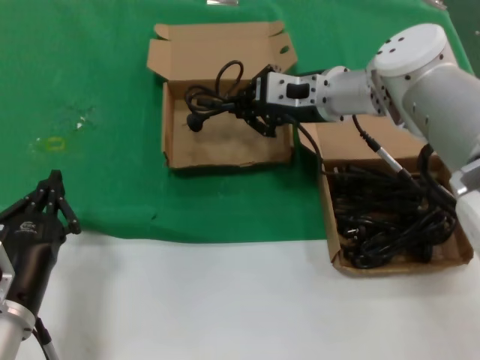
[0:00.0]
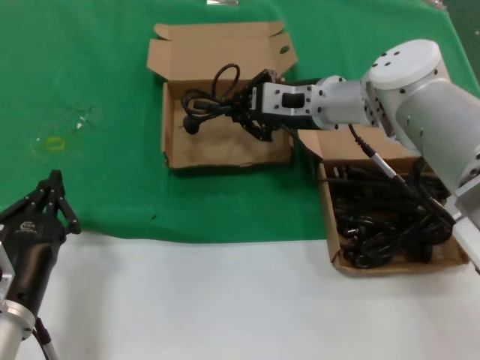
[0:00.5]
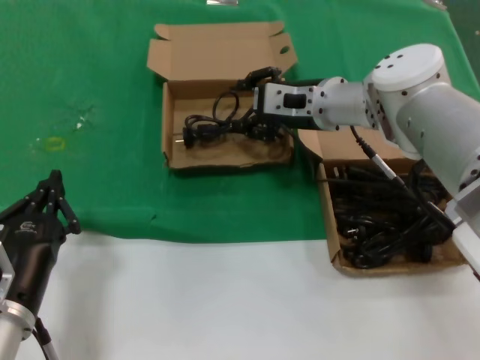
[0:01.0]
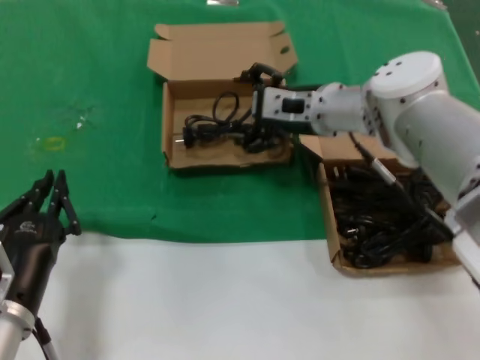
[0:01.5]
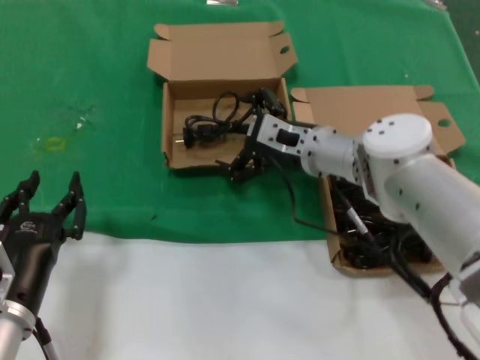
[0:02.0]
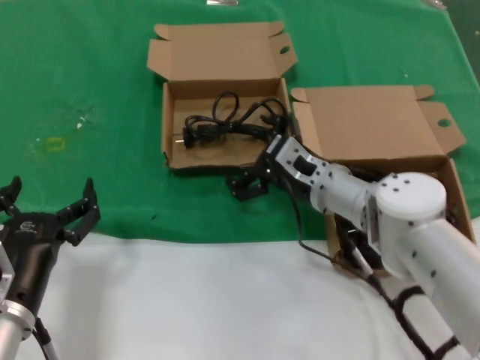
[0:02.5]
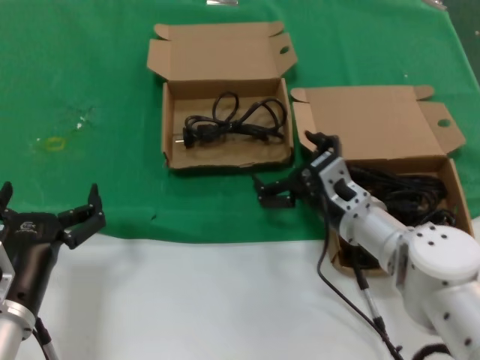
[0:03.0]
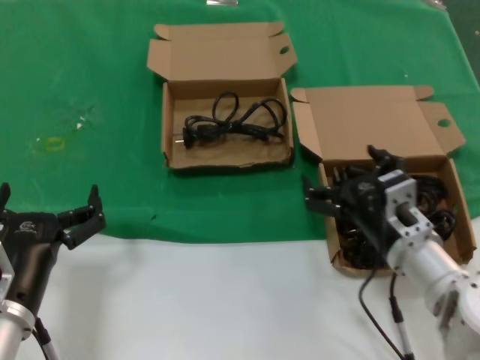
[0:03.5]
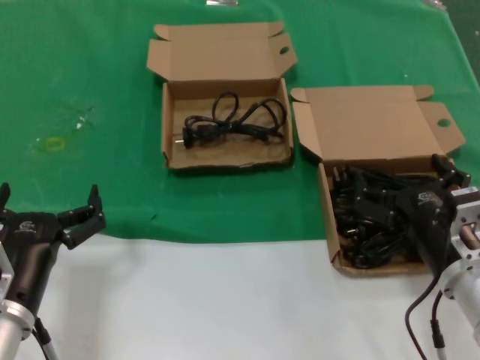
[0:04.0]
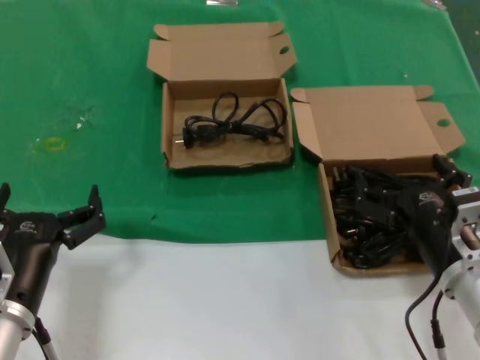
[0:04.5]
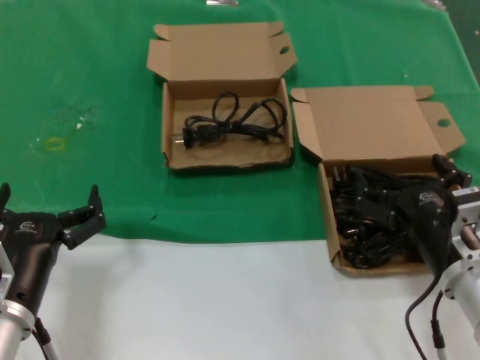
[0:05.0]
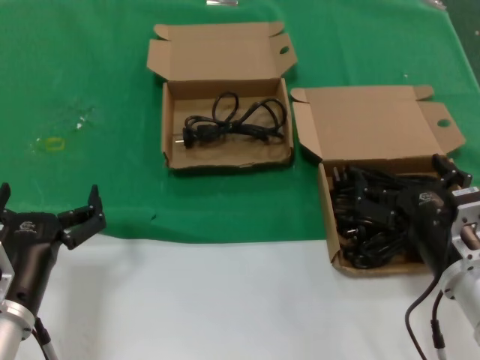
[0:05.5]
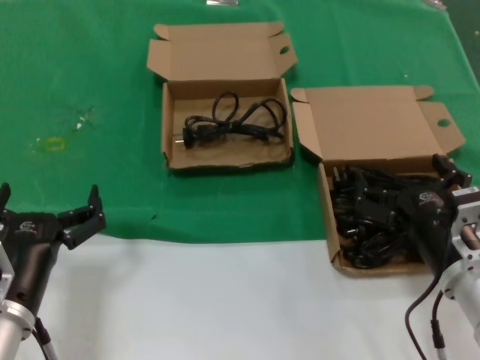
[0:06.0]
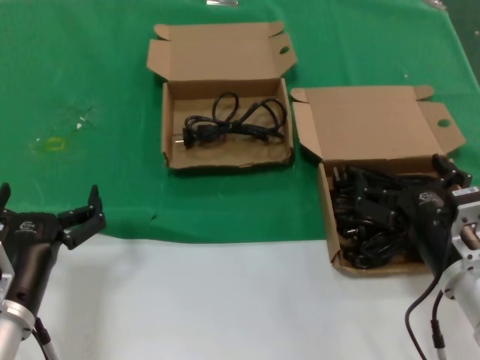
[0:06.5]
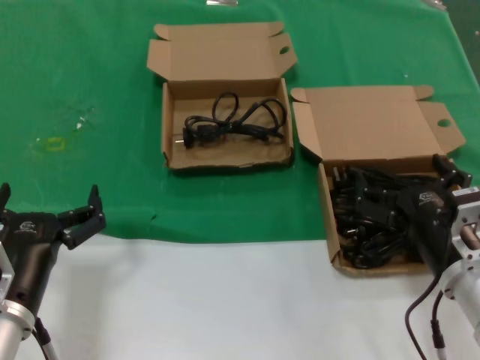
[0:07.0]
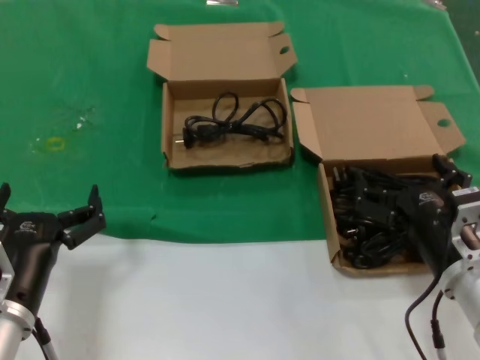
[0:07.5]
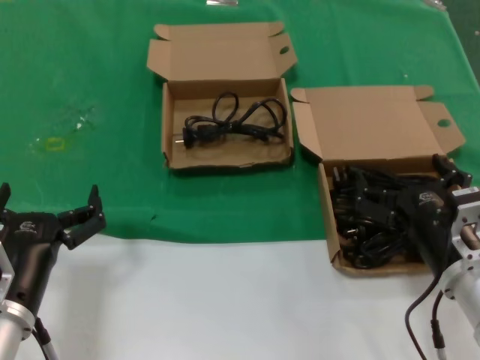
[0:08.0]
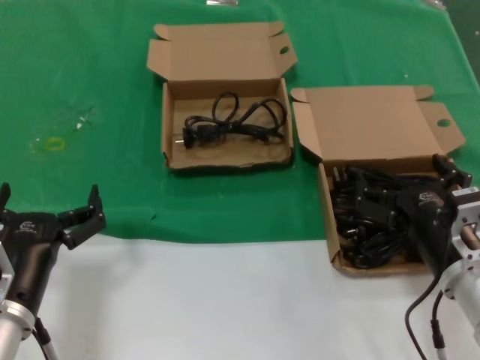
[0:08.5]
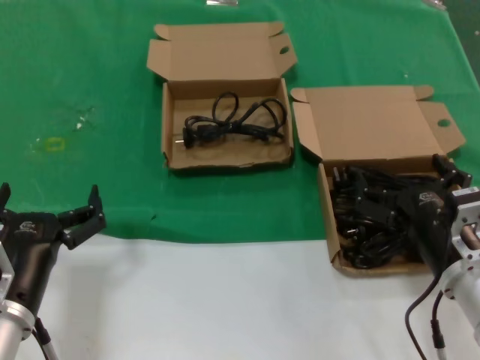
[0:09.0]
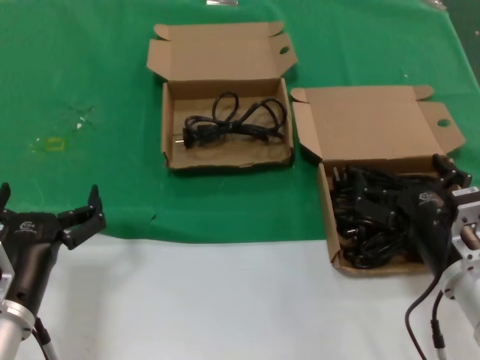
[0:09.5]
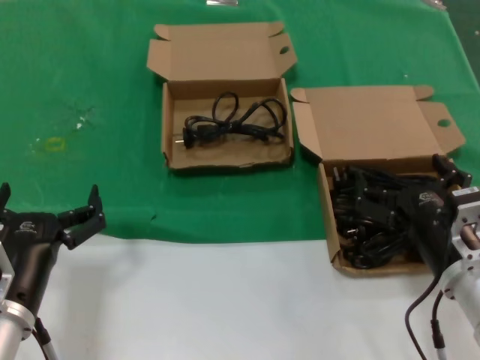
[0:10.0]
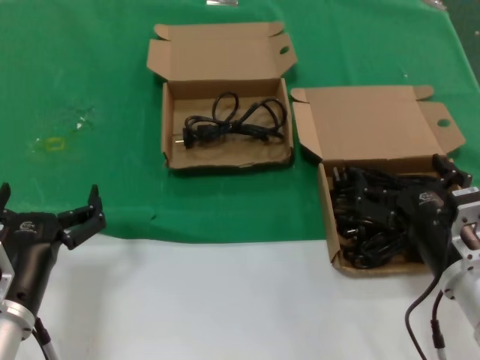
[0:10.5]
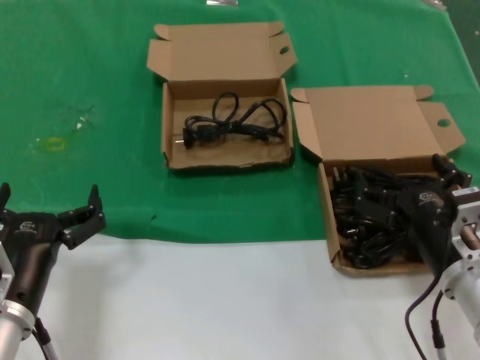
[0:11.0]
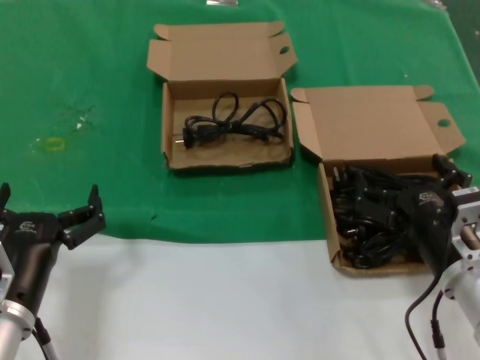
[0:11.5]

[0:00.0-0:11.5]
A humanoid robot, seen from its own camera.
Task of the whole recording: take the parts from the box containing them and put them into an empty box.
0:00.0 to 0:02.0: The right hand goes some 10 cm downward.
0:02.0 to 0:04.0: The right hand travels backward and to the right by approximately 25 cm.
0:04.0 to 0:11.5: The two hands keep their place.

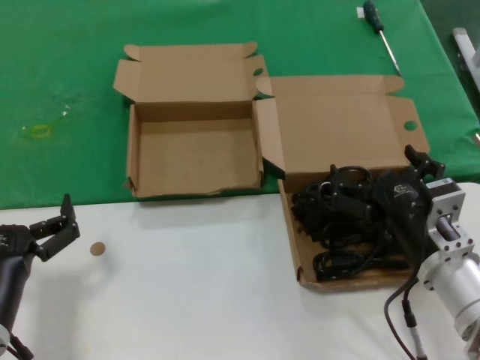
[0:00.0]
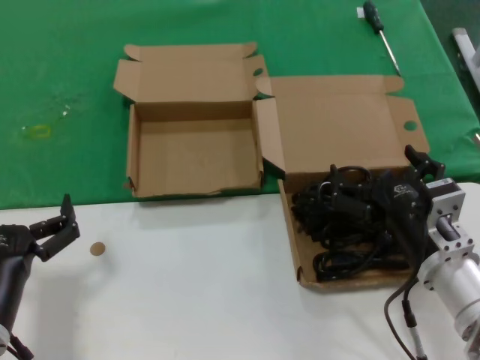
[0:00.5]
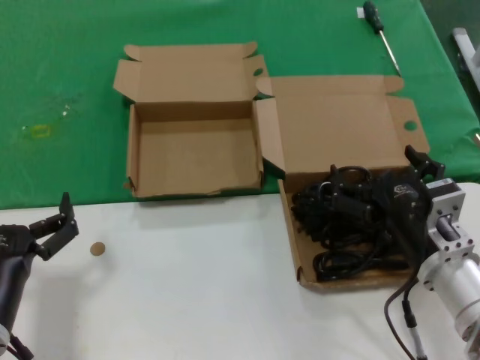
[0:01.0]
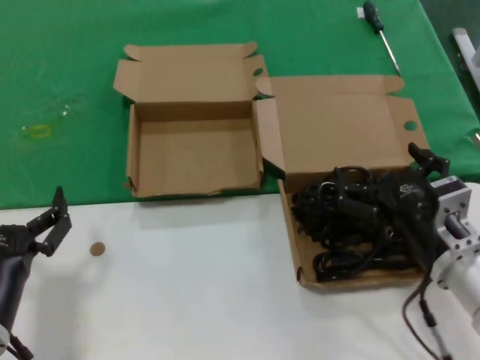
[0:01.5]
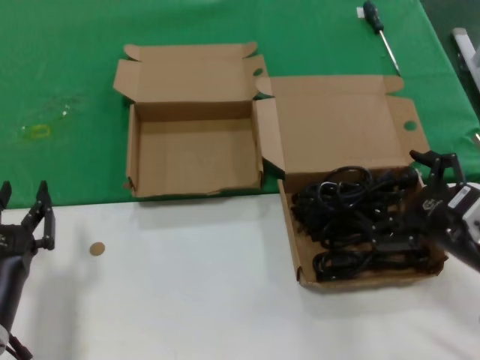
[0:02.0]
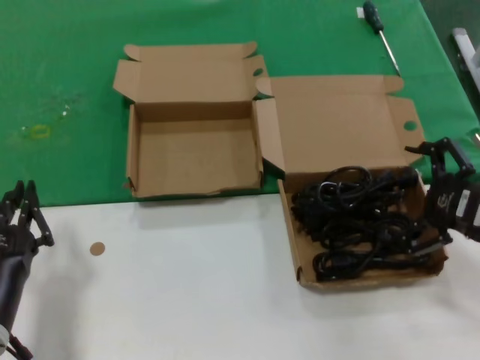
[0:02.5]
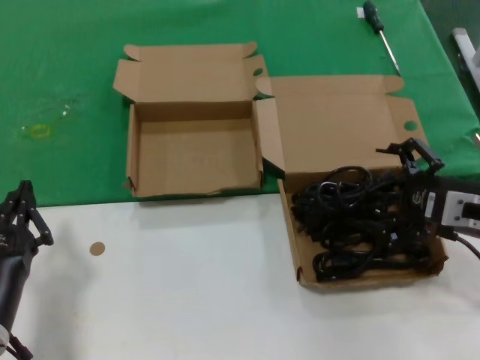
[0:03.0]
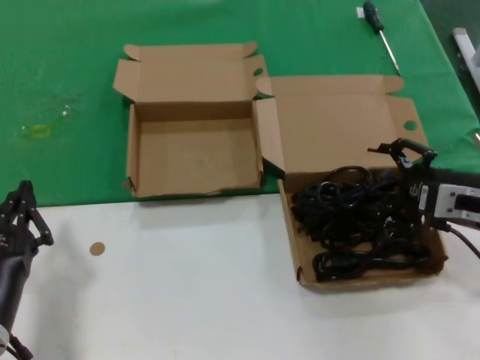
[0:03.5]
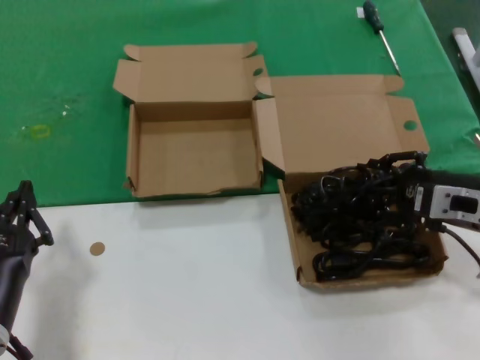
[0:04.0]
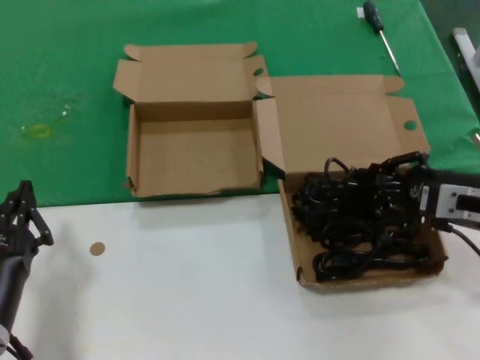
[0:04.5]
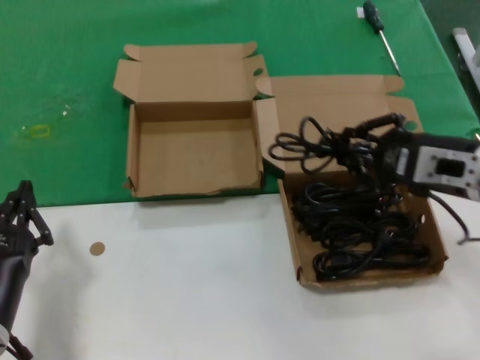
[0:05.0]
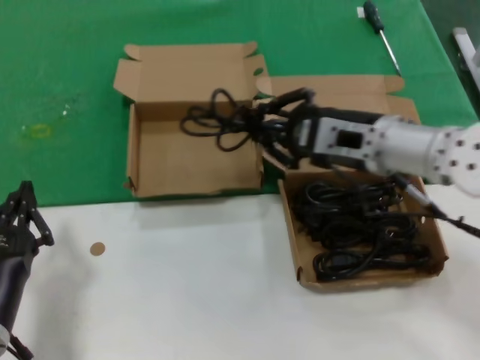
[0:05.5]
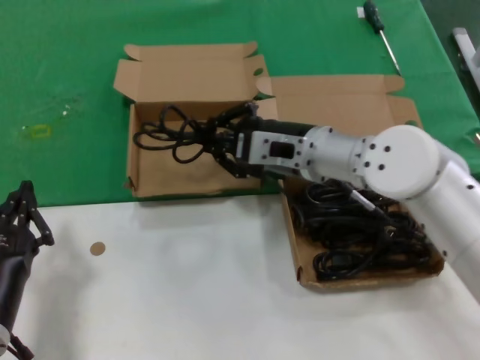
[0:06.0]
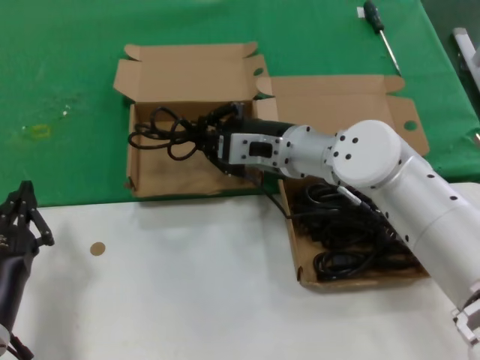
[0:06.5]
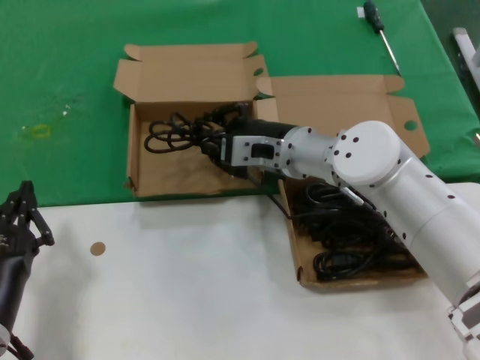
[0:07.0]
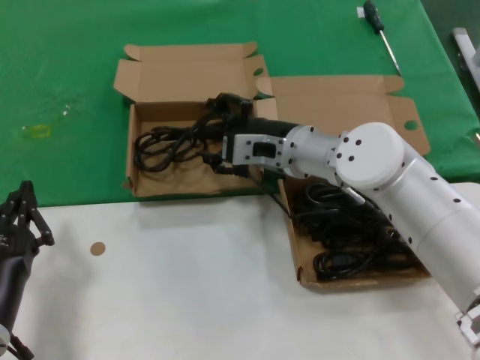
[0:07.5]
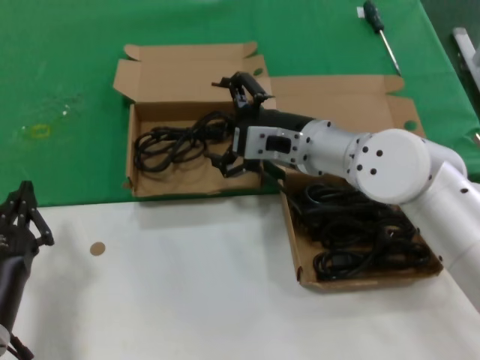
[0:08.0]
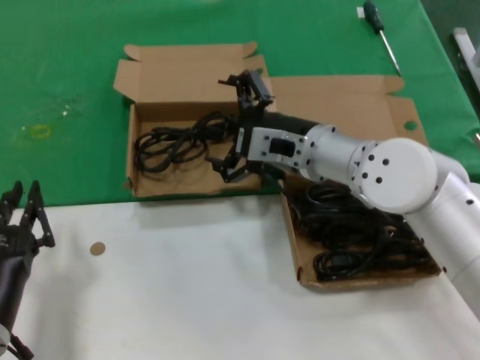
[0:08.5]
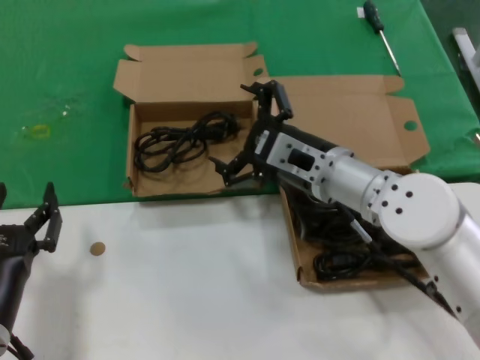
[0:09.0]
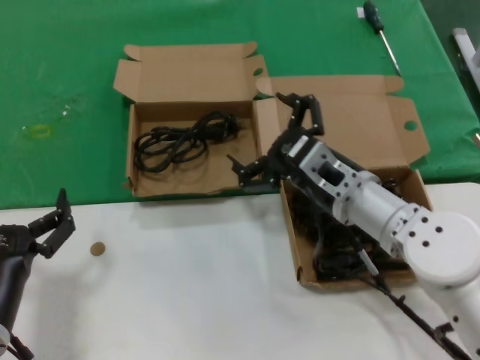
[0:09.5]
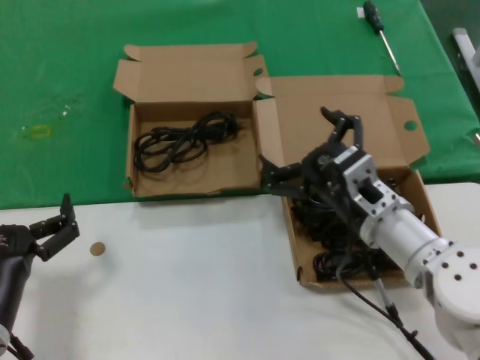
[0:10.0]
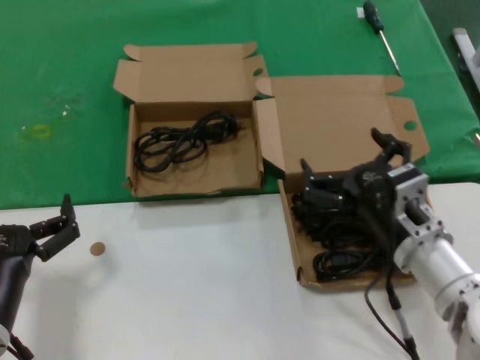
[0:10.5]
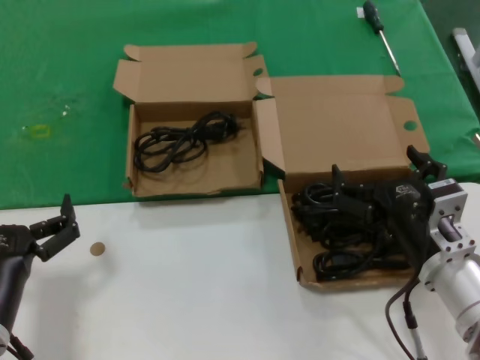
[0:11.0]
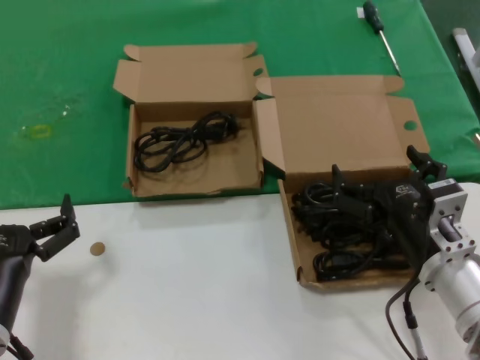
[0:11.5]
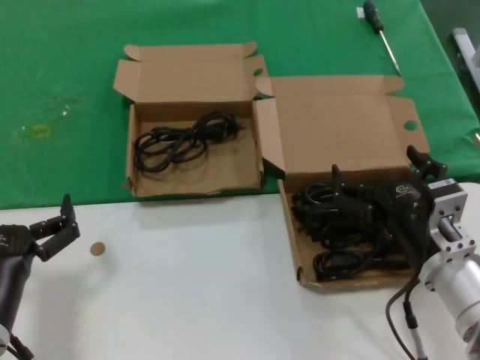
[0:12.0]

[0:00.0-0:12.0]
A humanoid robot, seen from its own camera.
Task of the whole recording: take the parts from the box containing them and put them into an empty box.
Step, 0:00.0 to 0:04.0: Grasp the data cable.
Step, 0:04.5 to 0:07.5: Place the data cable in the another box.
0:00.0 to 0:02.0: The right hand moves to the right, some 10 cm.
0:02.0 to 0:04.0: The right hand heads forward, covering approximately 10 cm.
0:04.0 to 0:06.0: The right hand shifts about 20 cm to the left and forward.
0:06.0 to 0:08.0: The hands make only small movements.
0:08.0 to 0:10.0: The right hand goes about 15 cm backward, downward and to the right.
0:10.0 to 0:12.0: The right hand moves backward, about 5 cm.

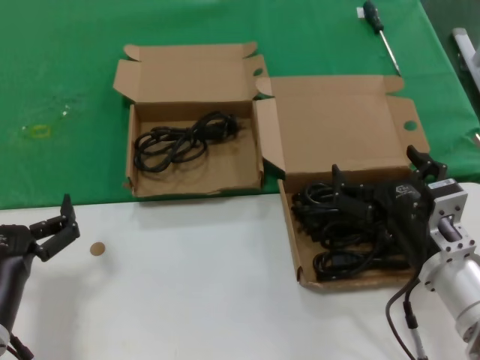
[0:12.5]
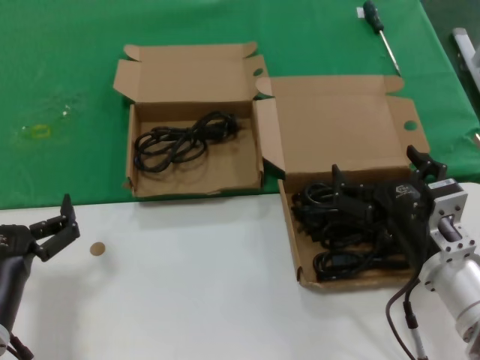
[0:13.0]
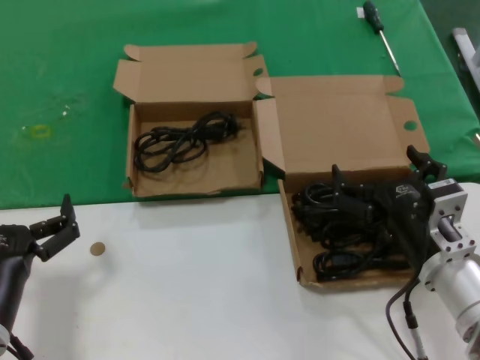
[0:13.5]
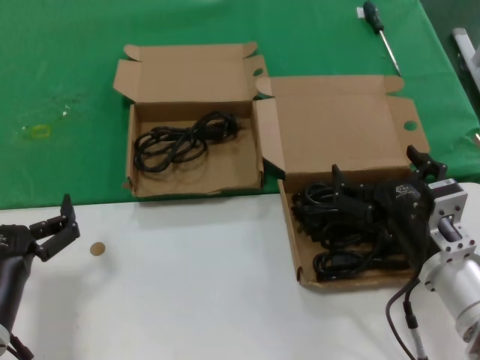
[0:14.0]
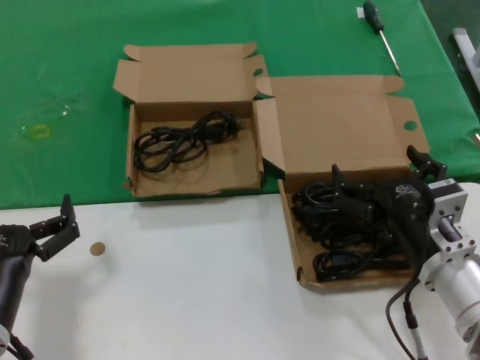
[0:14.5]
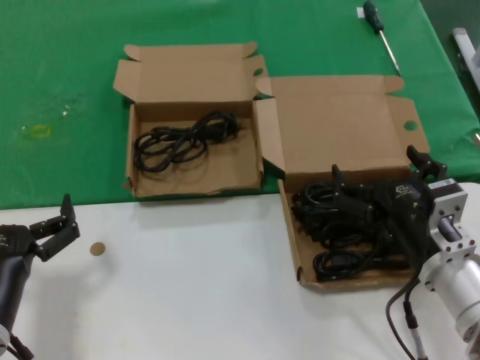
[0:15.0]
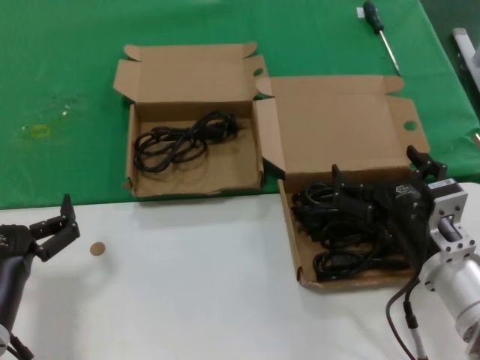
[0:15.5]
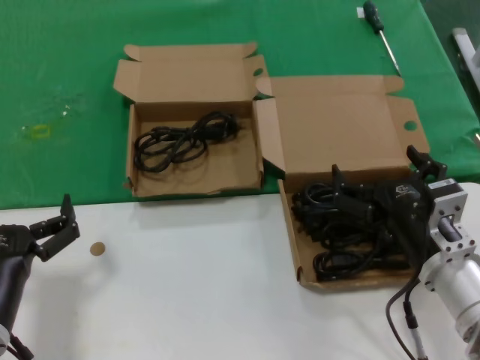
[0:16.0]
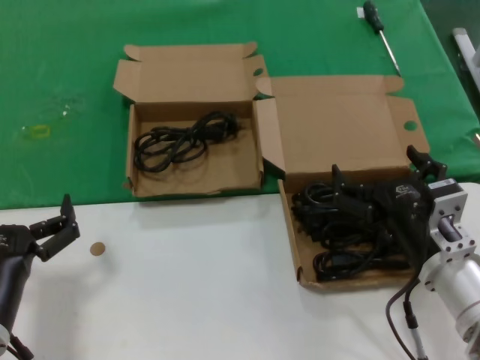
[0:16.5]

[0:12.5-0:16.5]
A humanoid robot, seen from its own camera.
Task of the whole recording: take the parts from the box containing them and put them into an empty box.
0:12.5 to 0:16.5: Neither hand changes place.
